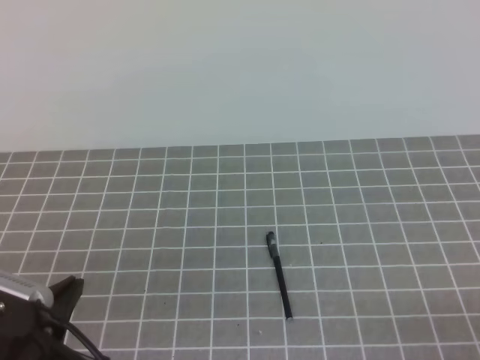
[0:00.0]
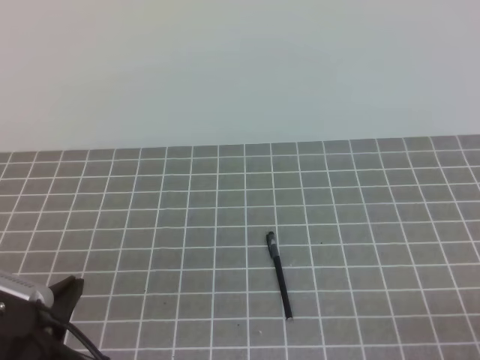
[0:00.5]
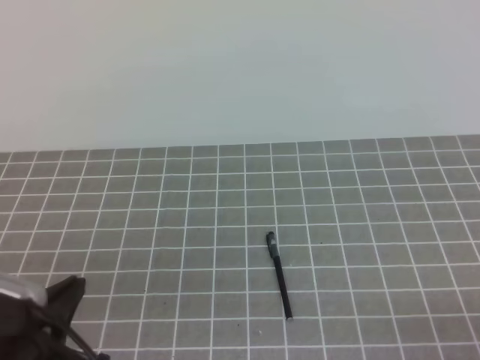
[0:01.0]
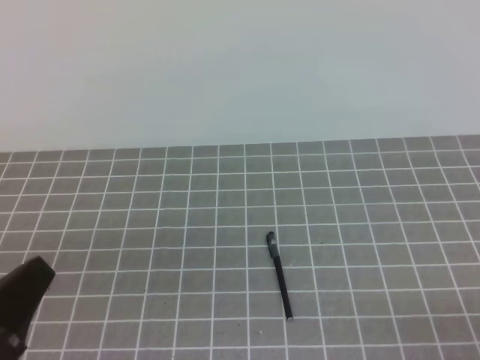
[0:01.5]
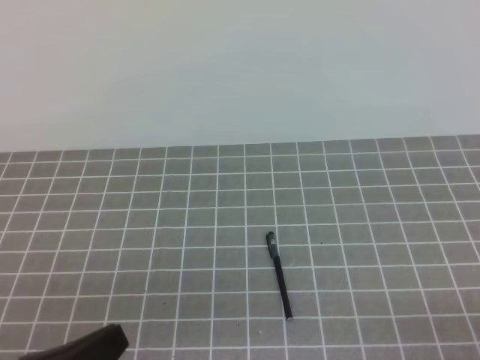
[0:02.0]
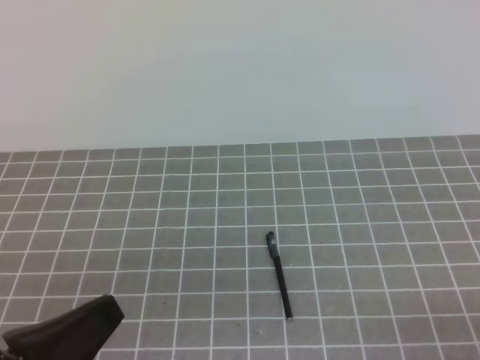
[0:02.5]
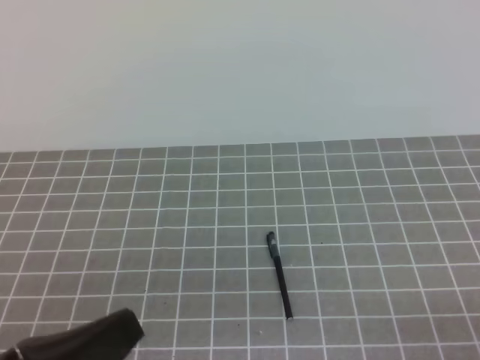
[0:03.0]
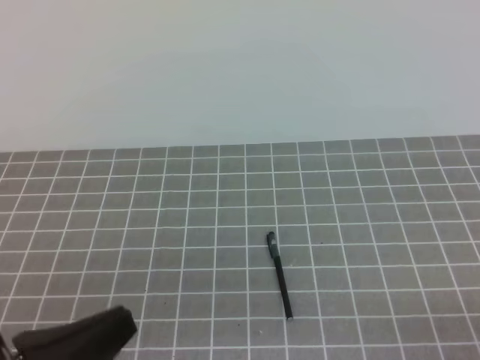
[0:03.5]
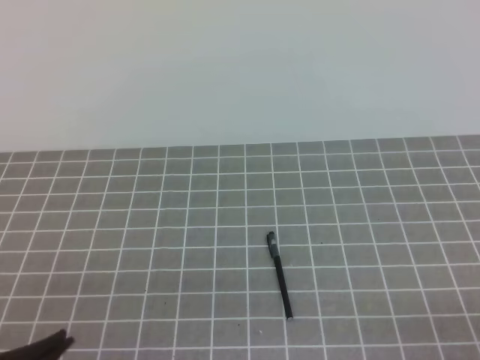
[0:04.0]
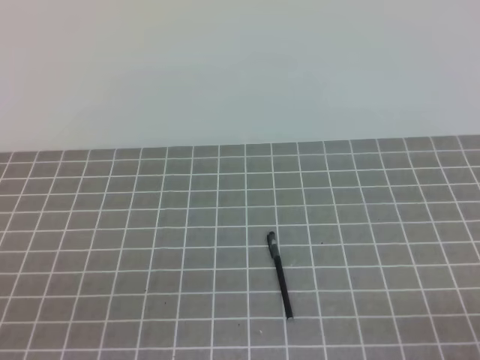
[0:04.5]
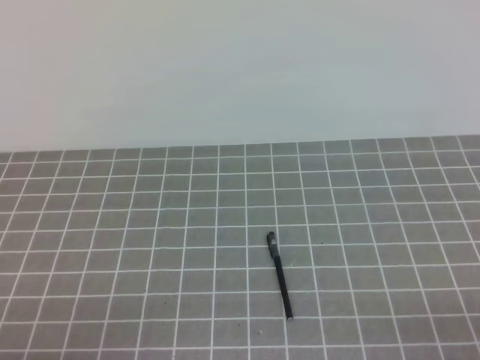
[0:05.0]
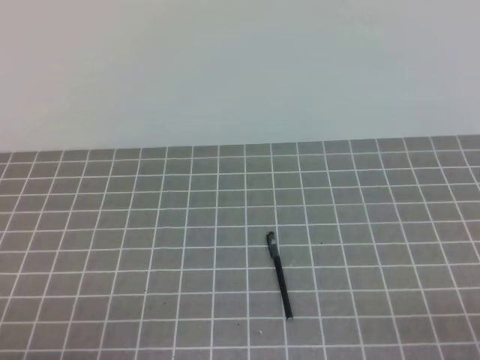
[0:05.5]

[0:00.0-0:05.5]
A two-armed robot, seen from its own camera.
Task of the whole recording: on the grey tablecloth, hold the pen cap in one hand and the pen in the other, then cover the pen cap.
Step, 0:00.0 to 0:05.5: Put the cap on the pen.
0:03.5 to 0:05.5: The left gripper shifts some 10 cm downward and to the left.
